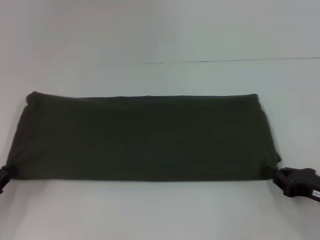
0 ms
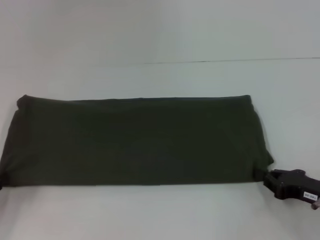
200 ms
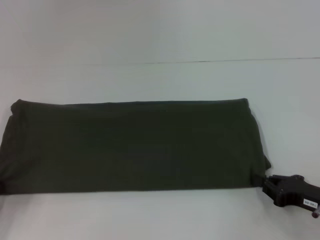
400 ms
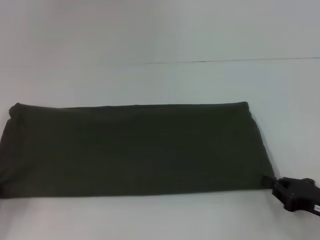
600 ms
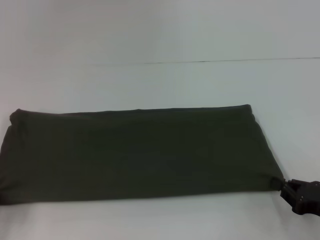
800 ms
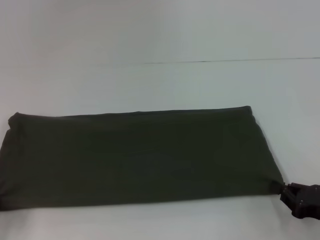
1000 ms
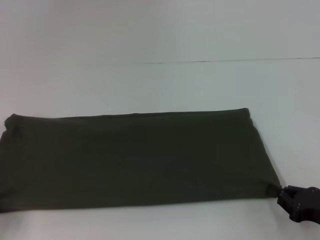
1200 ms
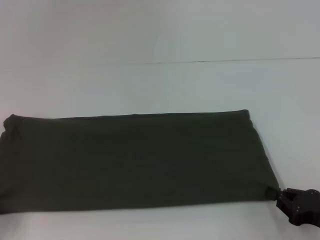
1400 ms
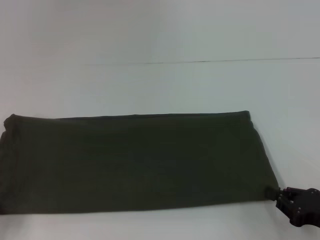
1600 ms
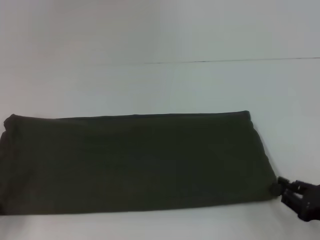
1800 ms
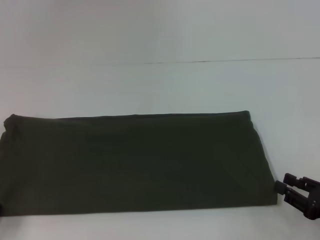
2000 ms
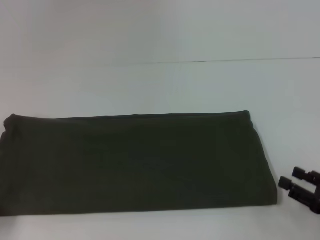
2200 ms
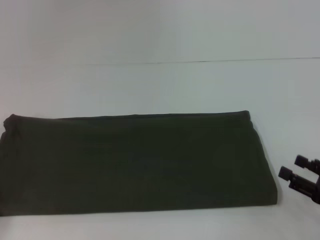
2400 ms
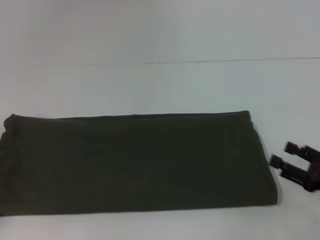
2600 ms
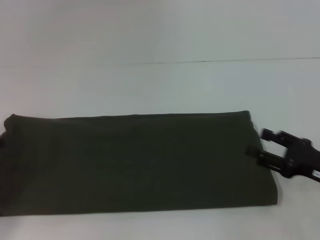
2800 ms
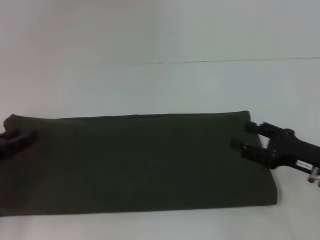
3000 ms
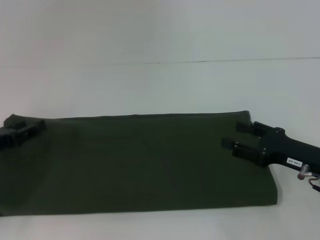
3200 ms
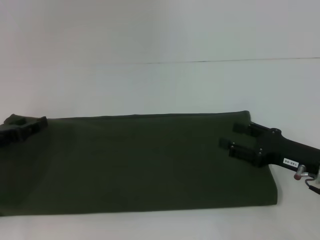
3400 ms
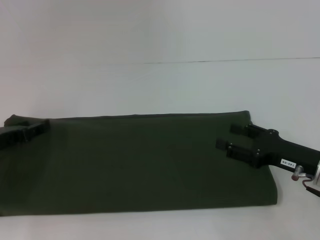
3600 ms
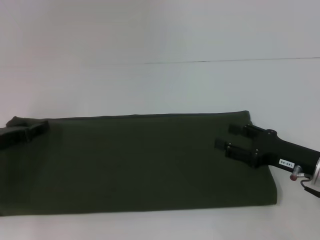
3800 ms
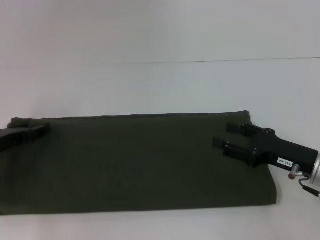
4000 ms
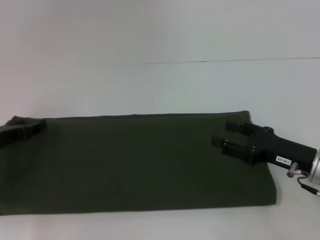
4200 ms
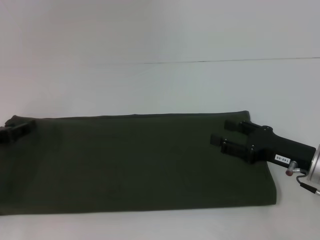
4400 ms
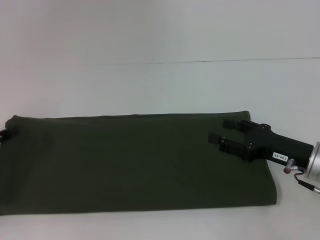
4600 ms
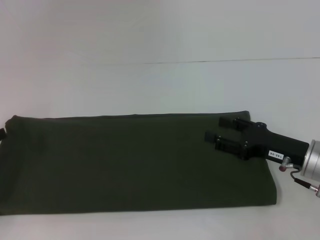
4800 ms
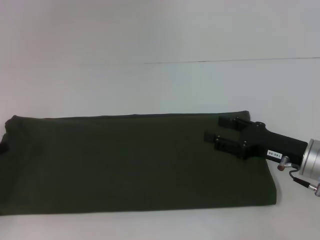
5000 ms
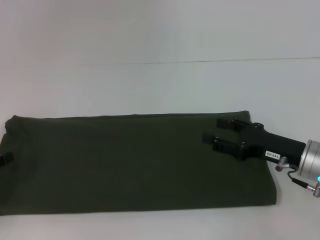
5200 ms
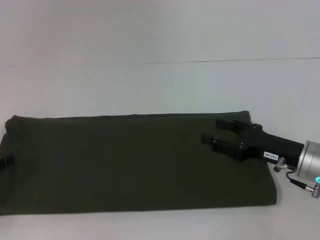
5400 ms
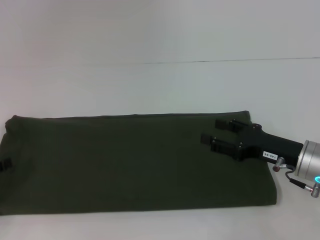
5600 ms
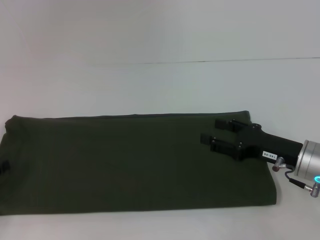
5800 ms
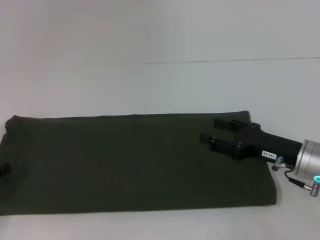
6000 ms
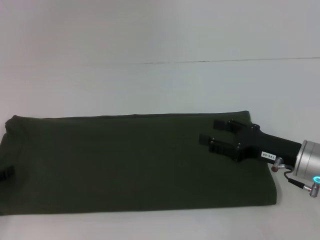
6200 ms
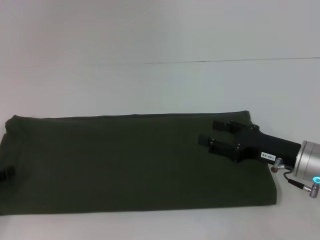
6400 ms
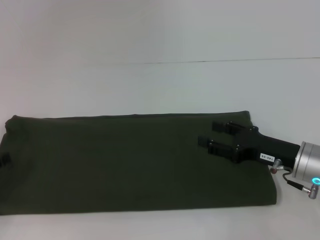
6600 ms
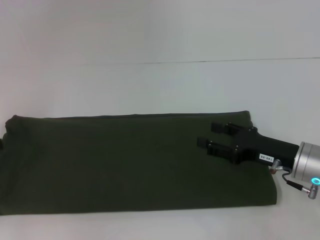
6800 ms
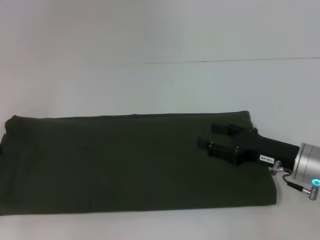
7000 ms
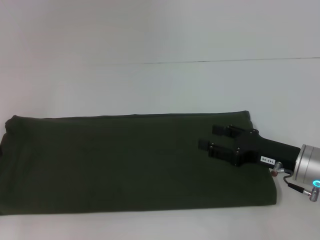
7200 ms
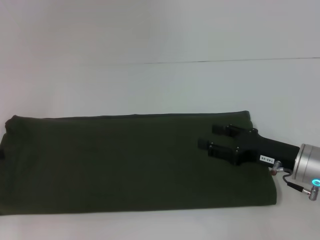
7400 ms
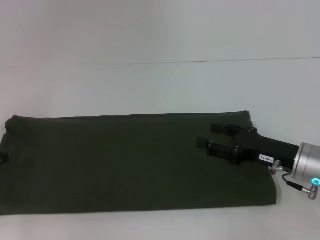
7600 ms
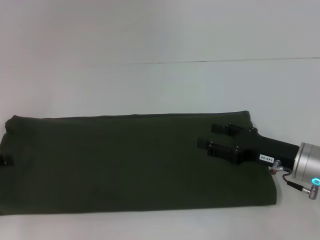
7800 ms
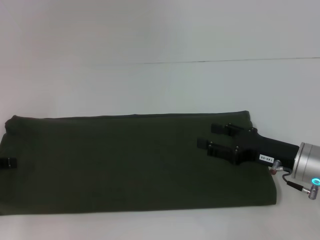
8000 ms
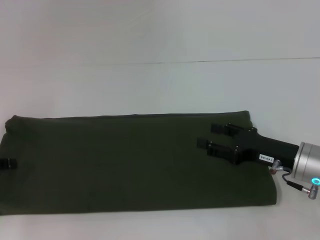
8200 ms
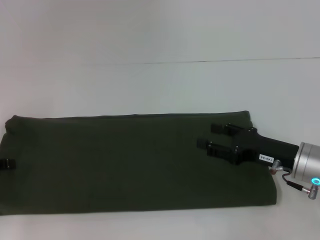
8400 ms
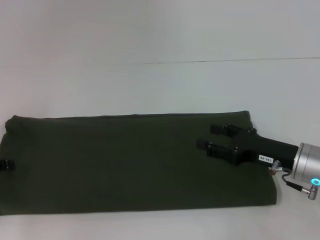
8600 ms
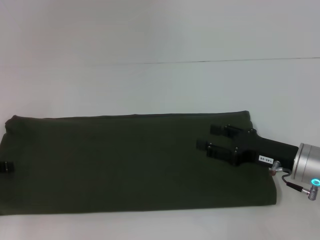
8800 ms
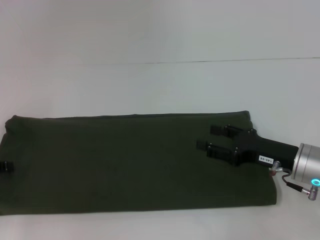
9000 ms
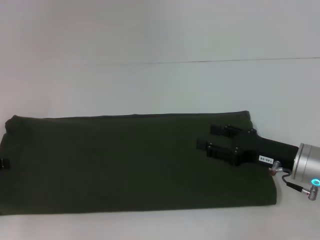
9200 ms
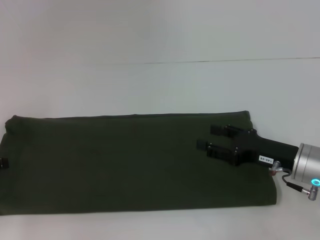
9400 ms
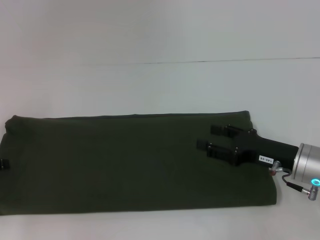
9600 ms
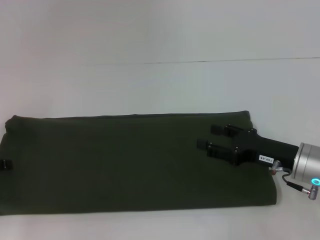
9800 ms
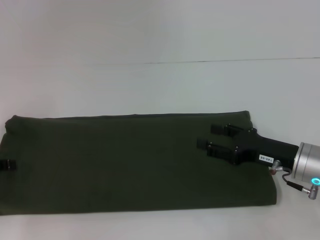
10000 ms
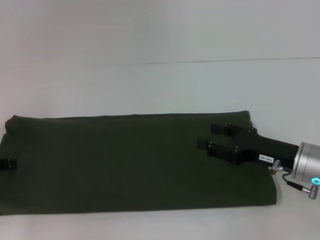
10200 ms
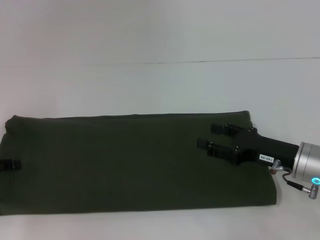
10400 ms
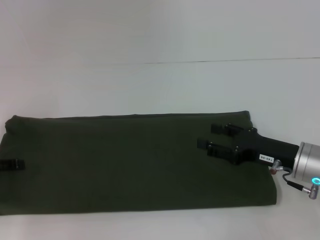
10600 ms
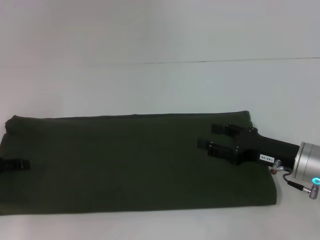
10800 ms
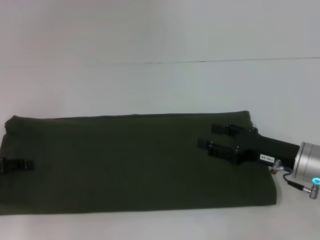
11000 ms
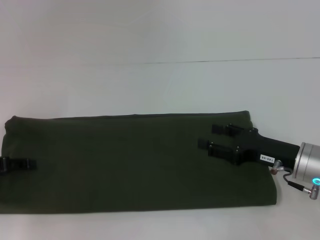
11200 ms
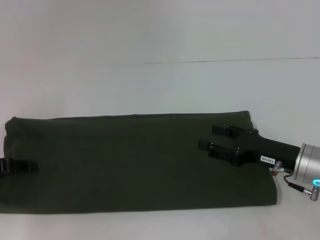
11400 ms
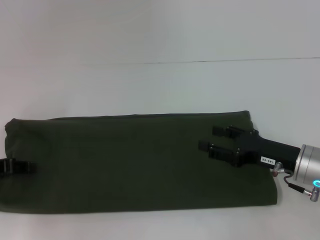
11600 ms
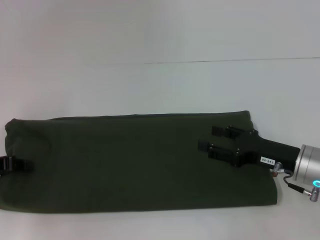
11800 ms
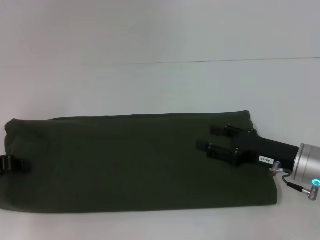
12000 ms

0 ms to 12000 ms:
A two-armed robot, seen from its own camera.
0 ms to 1600 ms: The left gripper shifts roughly 5 cm backward.
1600 ms to 3000 ms: Both grippers travel together forward, approximately 10 cm. The right gripper opens its fingers; the left gripper opens its fingers.
9000 ms to 10400 ms: Both grippers stay about where they are.
10400 ms to 12000 ms: The left gripper closes its fingers.

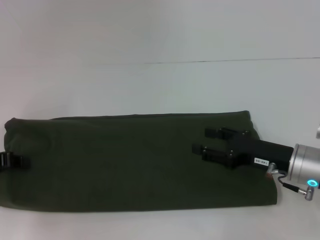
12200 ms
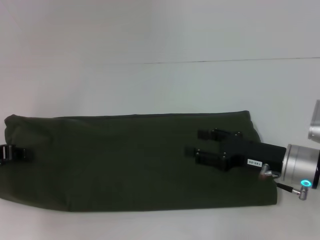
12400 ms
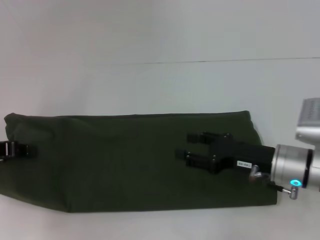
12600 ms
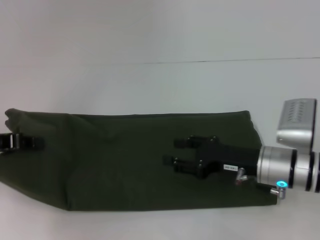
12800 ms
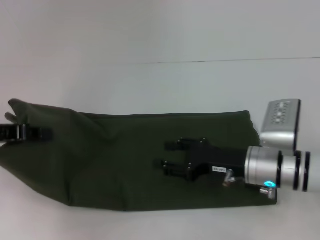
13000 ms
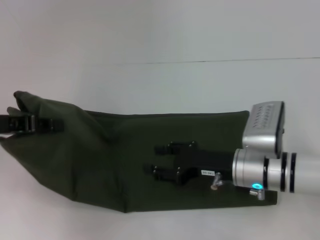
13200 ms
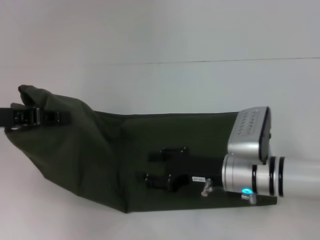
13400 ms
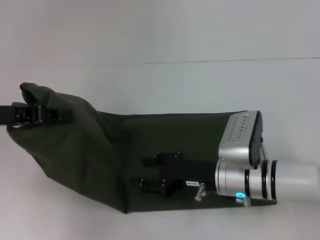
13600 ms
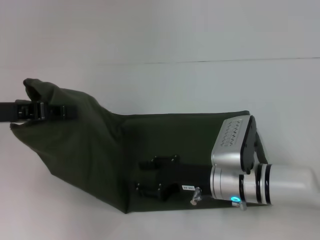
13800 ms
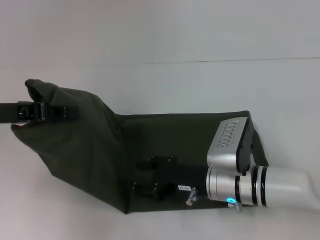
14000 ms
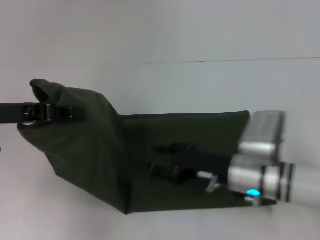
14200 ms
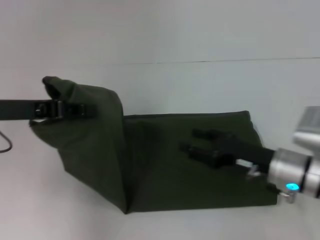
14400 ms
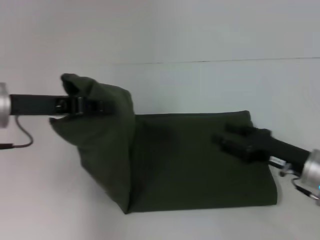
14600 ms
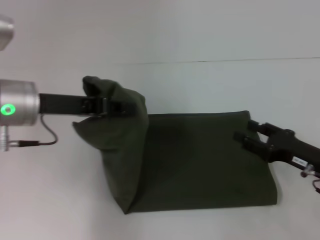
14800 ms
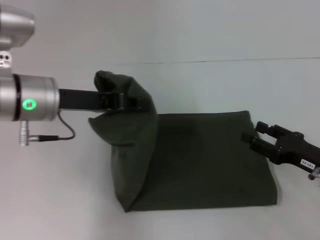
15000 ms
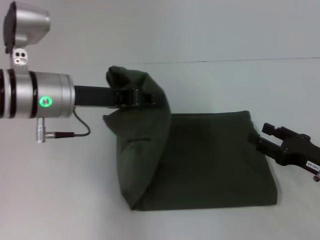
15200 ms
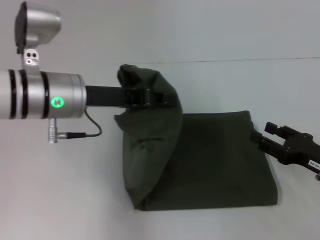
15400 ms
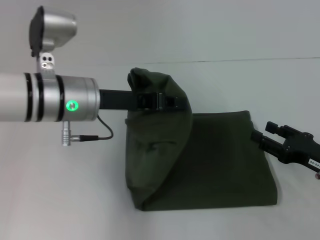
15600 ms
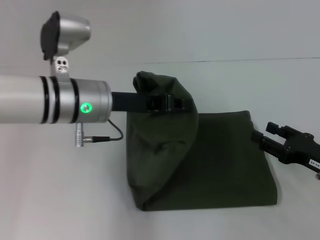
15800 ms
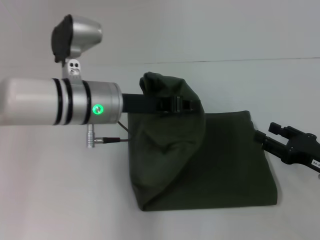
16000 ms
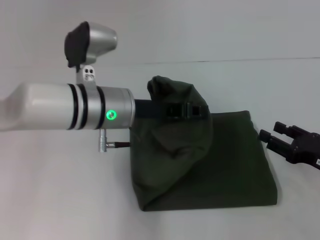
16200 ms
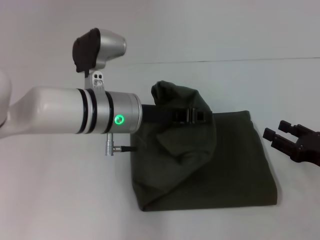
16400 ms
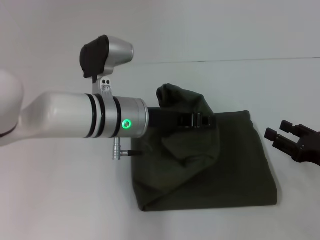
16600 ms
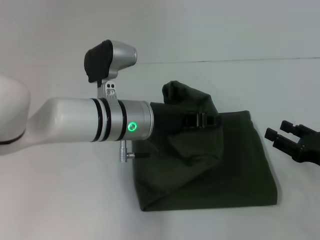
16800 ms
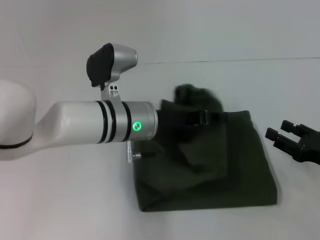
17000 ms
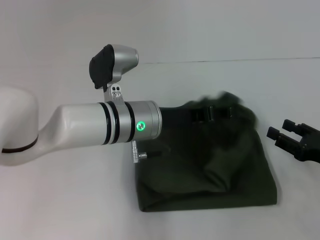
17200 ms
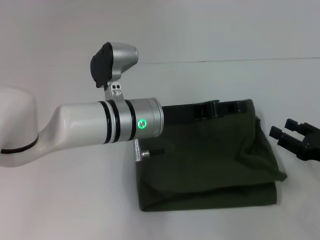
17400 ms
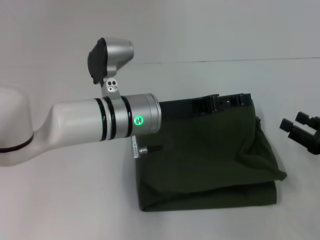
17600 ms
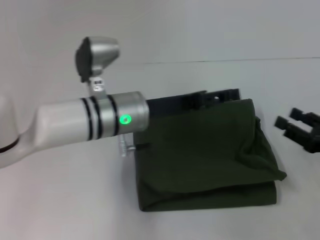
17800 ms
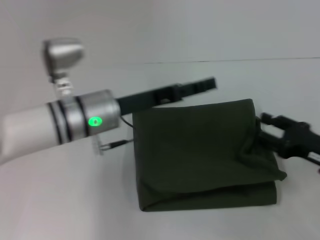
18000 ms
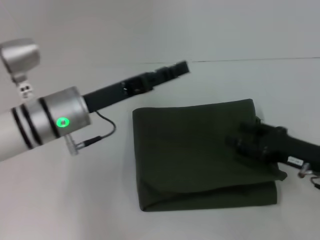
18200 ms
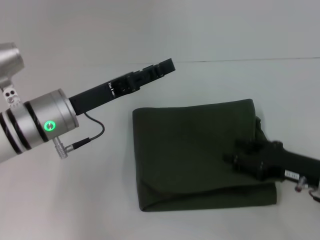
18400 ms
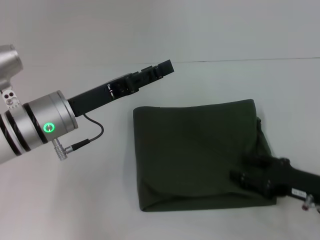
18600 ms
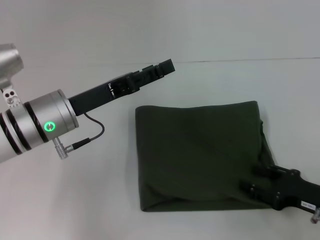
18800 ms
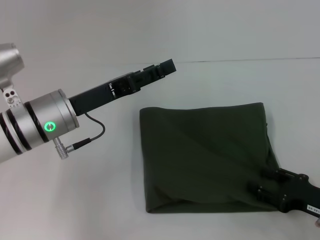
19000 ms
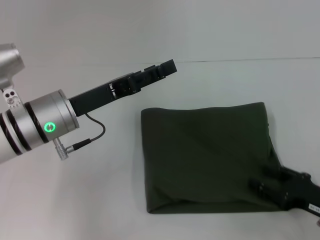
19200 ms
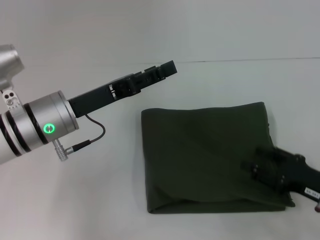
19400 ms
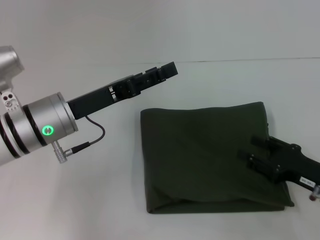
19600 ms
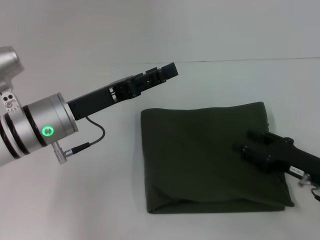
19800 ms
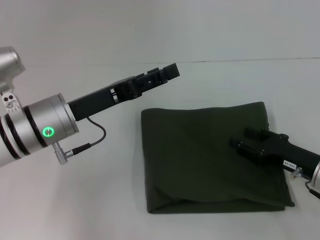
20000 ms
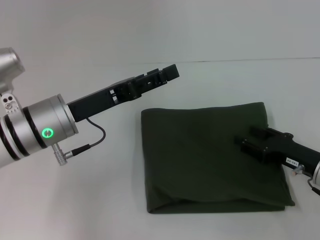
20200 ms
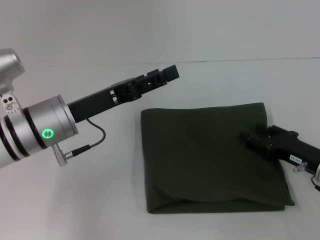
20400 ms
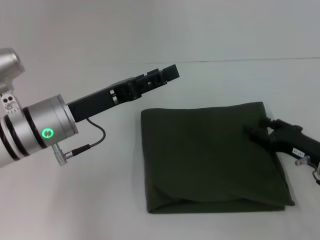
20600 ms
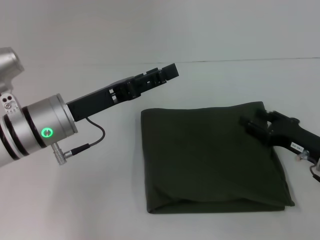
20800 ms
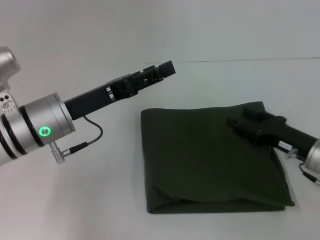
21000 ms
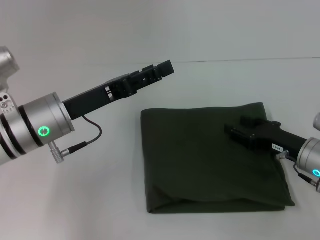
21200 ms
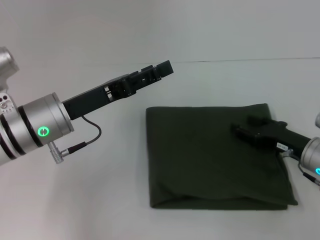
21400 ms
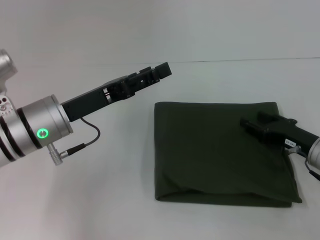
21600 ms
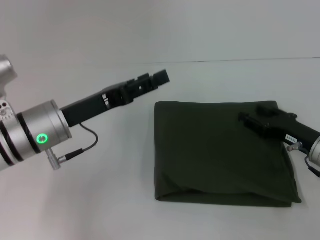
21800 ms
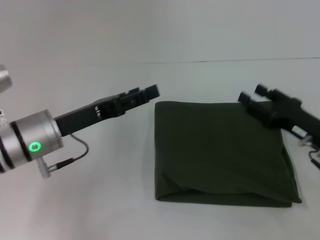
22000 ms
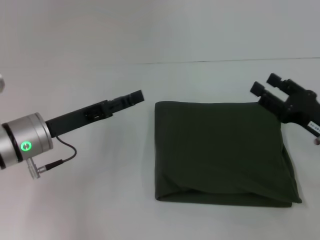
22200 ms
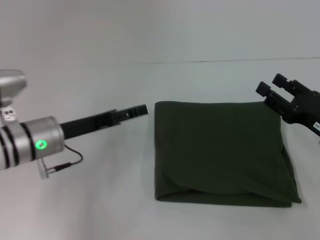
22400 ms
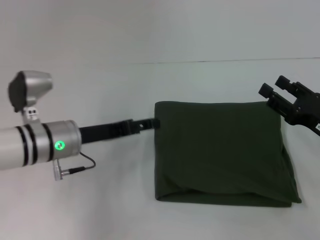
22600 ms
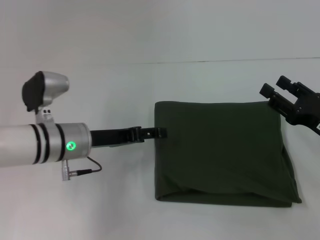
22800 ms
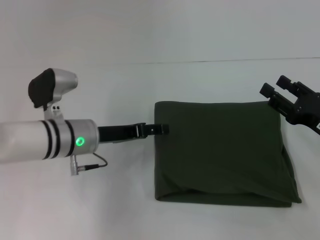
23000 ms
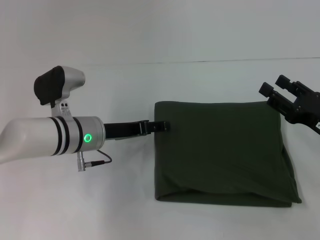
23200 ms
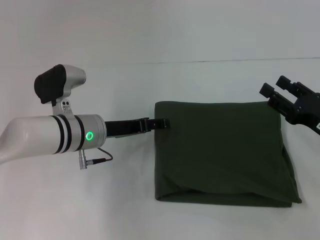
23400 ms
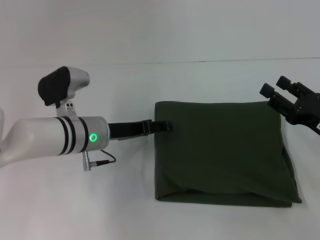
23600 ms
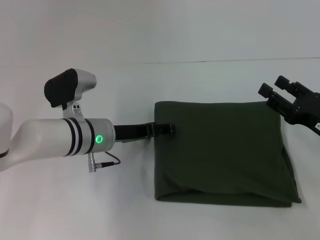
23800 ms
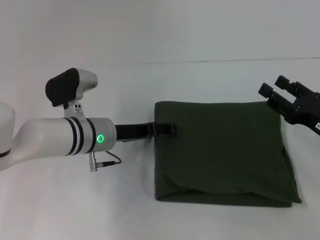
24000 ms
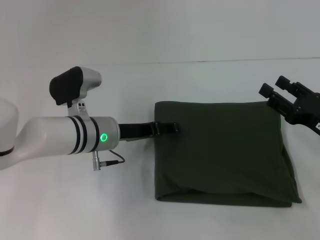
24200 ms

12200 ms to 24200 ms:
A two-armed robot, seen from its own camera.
Step, 12200 ms to 17200 ms: Fold the clothes with your left hand.
12200 ms to 13800 ms: The left gripper heads upward and to the right, covering approximately 10 cm. The right gripper travels to the left by approximately 10 cm.
13800 ms to 15200 ms: The right gripper travels to the right by some 20 cm; the left gripper moves to the right, approximately 10 cm.
15200 ms to 16600 ms: The left gripper heads to the right, covering approximately 10 cm.
16600 ms to 18200 ms: The left gripper travels to the left by roughly 10 cm, and opens. Meanwhile the right gripper ends up roughly 5 cm from where it was.
19800 ms to 21200 ms: The right gripper changes place by about 5 cm.
21200 ms to 22600 ms: The left gripper shifts by roughly 5 cm; the right gripper moves roughly 5 cm.
22600 ms to 24200 ms: The left gripper travels to the right by some 5 cm.
